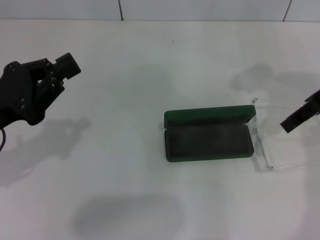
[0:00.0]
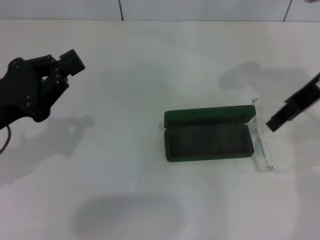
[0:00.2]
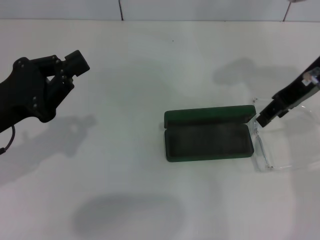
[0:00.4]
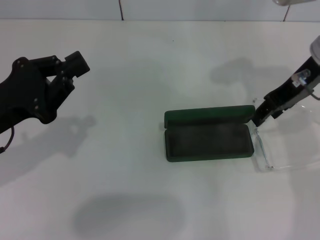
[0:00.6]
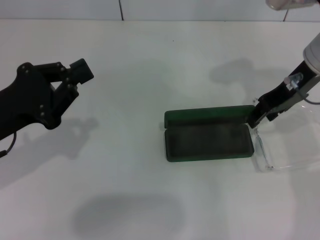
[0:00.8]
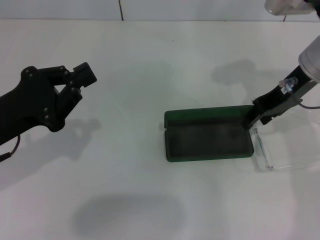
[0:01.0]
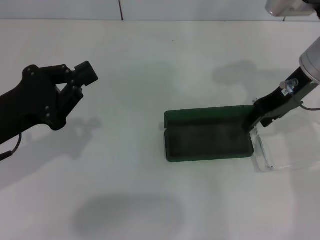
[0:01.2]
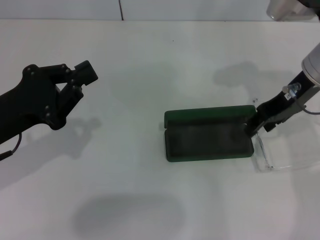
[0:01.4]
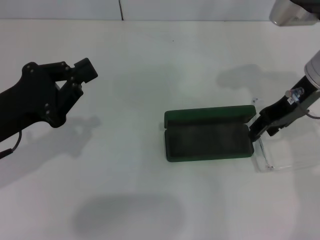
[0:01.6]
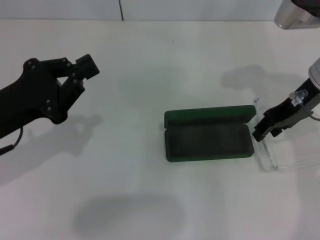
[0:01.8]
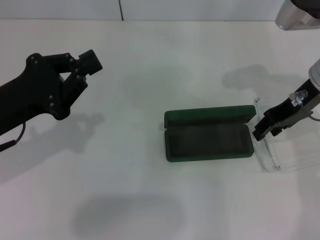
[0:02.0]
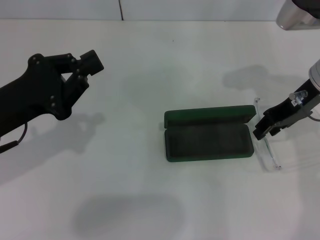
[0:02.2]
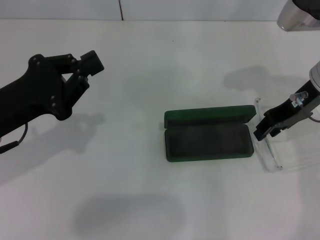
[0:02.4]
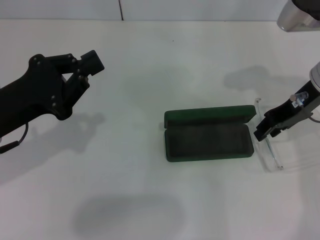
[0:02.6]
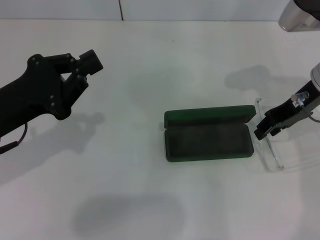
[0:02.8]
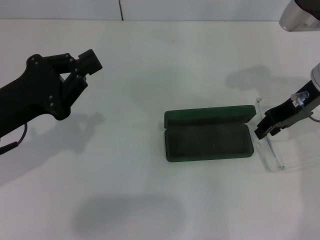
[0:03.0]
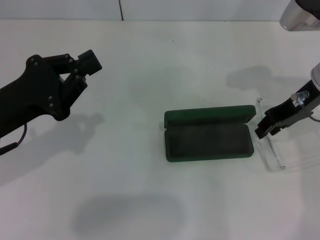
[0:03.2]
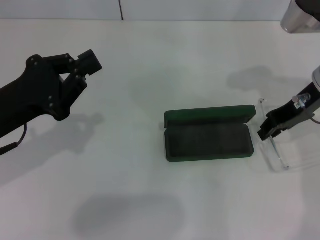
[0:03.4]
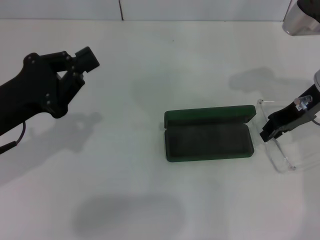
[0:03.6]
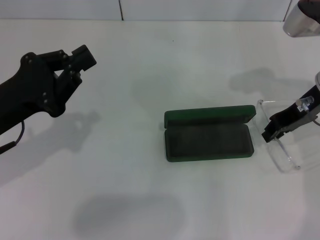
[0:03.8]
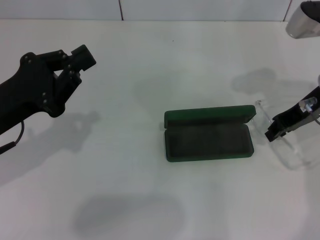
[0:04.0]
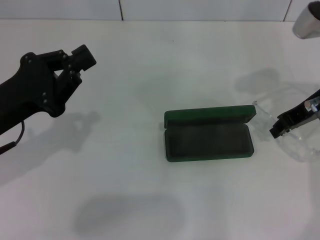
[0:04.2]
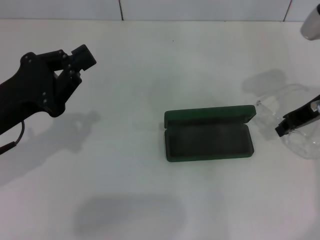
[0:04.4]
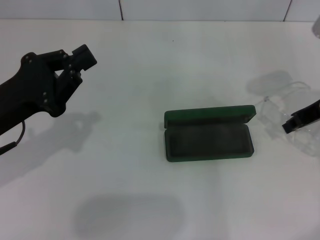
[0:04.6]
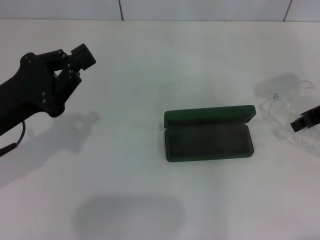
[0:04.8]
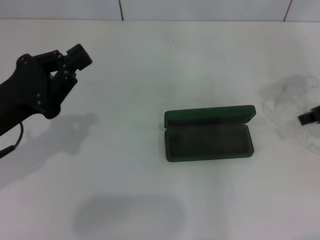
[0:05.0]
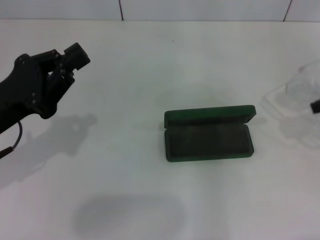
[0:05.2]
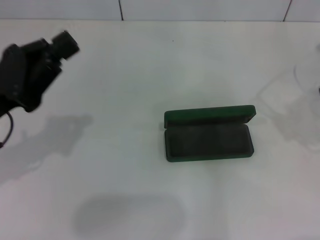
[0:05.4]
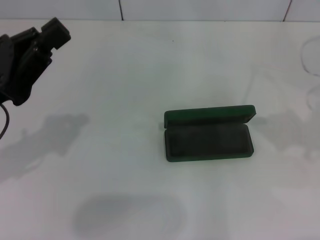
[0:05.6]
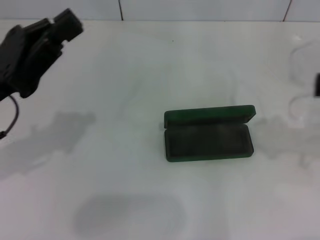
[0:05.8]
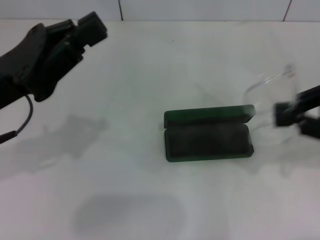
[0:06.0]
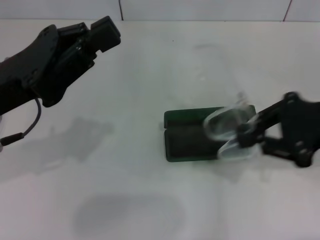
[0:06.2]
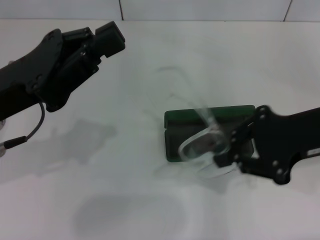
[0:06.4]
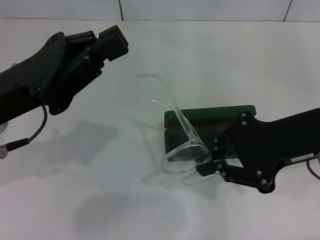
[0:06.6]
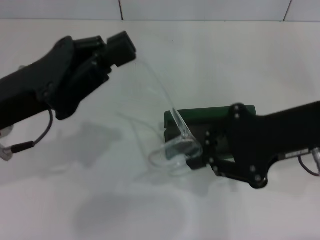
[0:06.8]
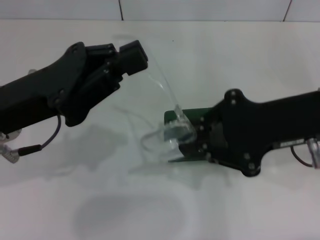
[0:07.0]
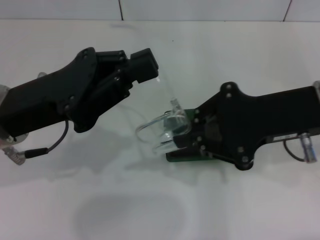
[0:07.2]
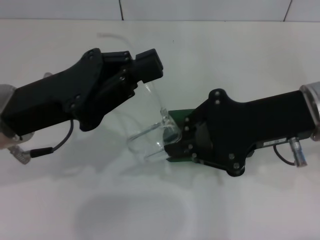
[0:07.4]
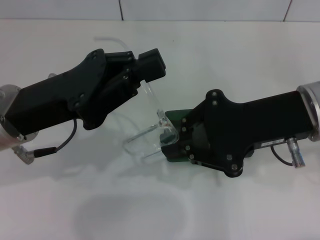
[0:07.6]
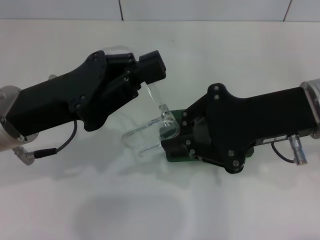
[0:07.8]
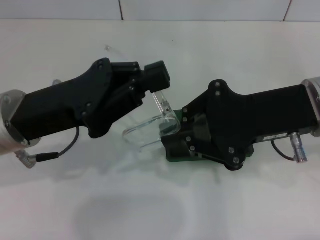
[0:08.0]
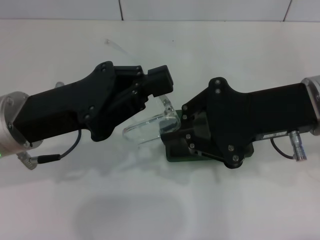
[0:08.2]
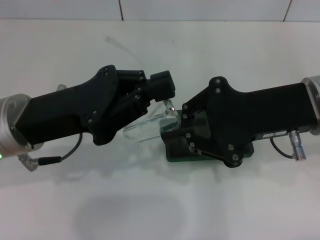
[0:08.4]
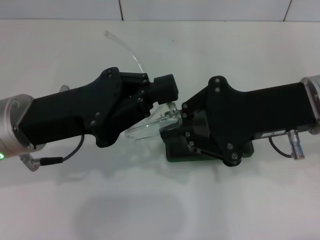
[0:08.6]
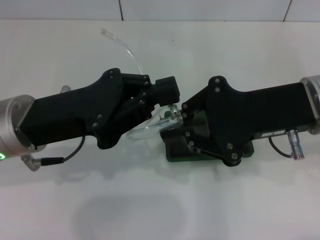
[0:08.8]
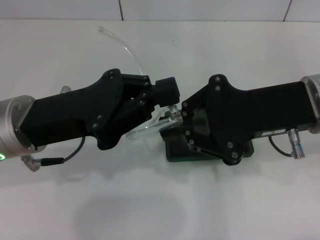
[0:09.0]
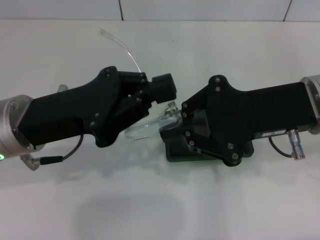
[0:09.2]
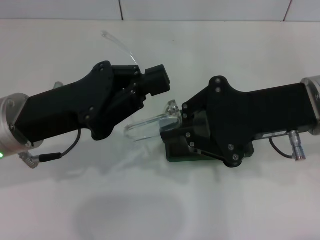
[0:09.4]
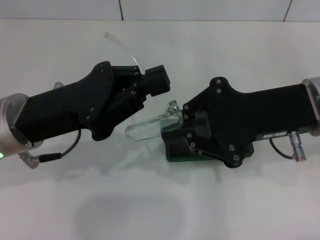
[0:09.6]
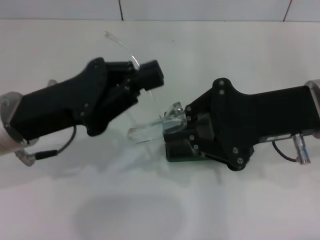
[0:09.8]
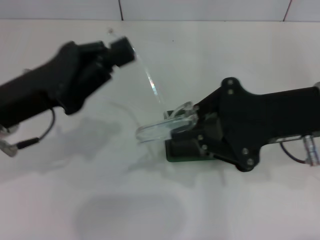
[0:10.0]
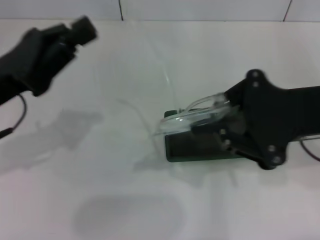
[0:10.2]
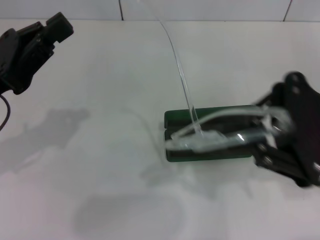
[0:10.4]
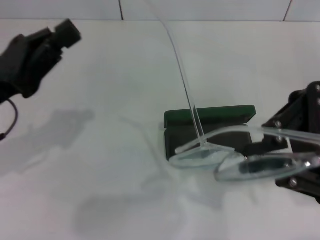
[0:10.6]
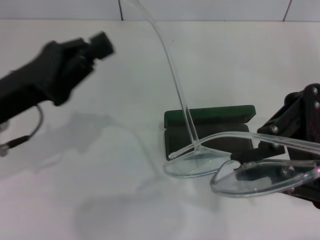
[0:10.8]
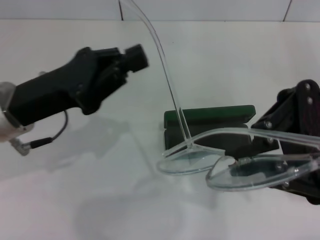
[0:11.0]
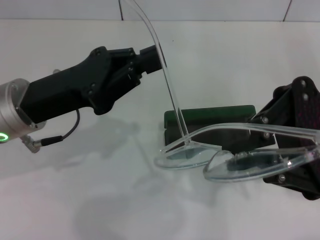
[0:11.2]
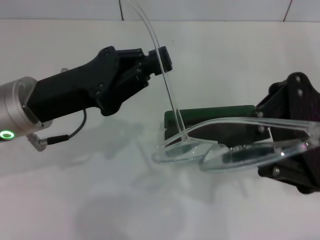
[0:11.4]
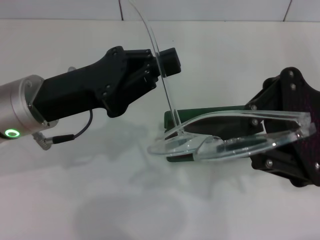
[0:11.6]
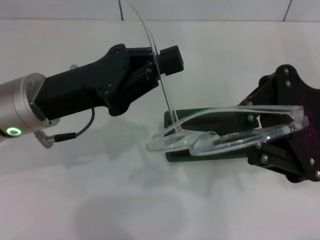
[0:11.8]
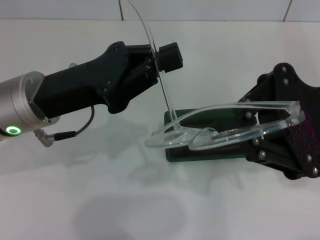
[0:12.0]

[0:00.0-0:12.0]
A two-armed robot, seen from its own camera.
Step, 0:00.0 to 0:03.8: Grab the eyeglass frame with your right hand.
0:00.0 to 0:01.6: The right gripper goes about 5 cm downward.
0:01.6 to 0:04.4: The grippers stay close to where they were, moving slightly.
0:04.4 to 0:06.0: The left gripper ends up about 5 cm from where it was, while the right gripper heads backward, upward and to the right, covering roughly 15 cm.
0:06.0 to 0:07.6: The right gripper heads to the left, covering about 10 cm.
0:07.6 to 0:09.0: The grippers make only small movements.
0:09.0 to 0:10.4: The left gripper travels to the left by roughly 10 cm. The right gripper moves about 5 cm.
0:10.4 to 0:12.0: The left gripper heads to the right, covering about 10 cm.

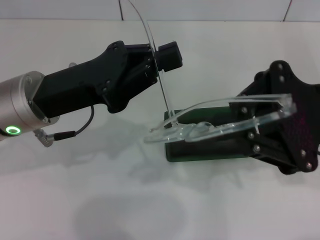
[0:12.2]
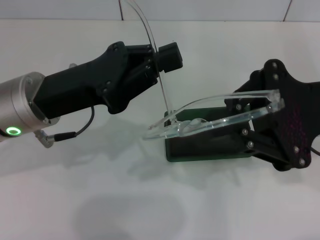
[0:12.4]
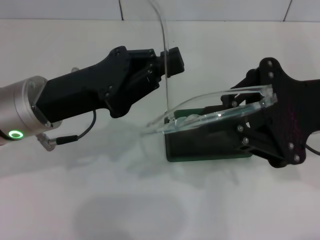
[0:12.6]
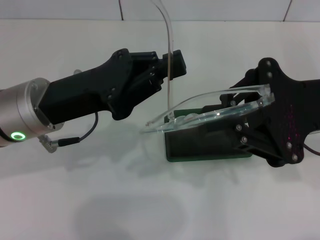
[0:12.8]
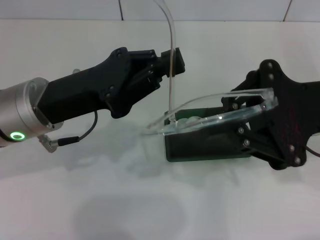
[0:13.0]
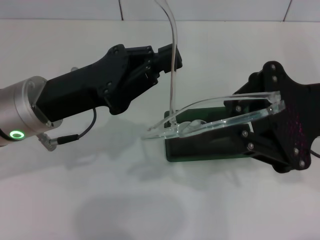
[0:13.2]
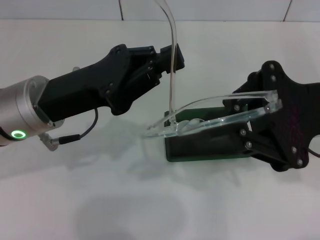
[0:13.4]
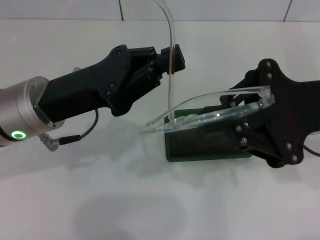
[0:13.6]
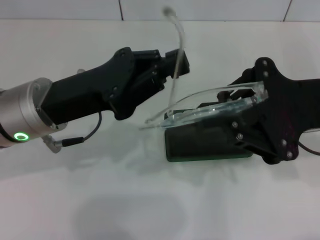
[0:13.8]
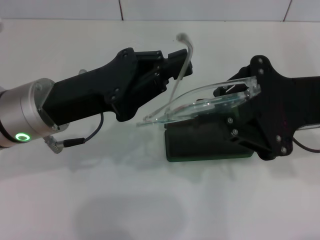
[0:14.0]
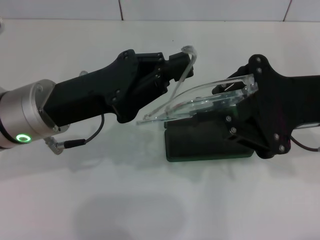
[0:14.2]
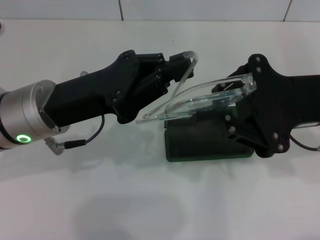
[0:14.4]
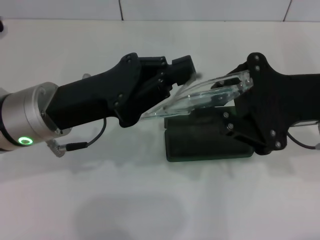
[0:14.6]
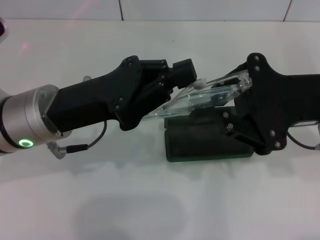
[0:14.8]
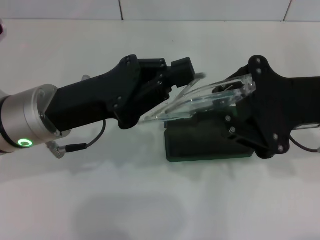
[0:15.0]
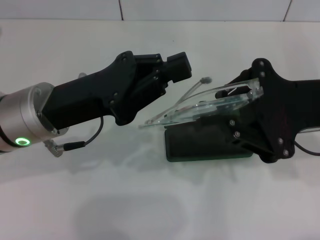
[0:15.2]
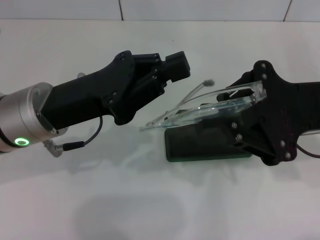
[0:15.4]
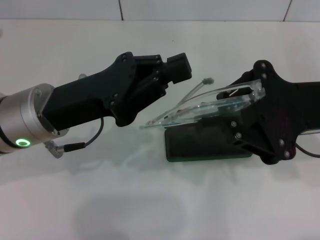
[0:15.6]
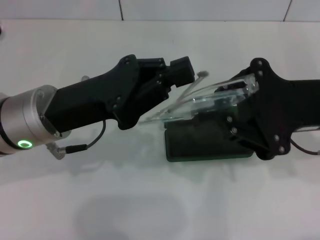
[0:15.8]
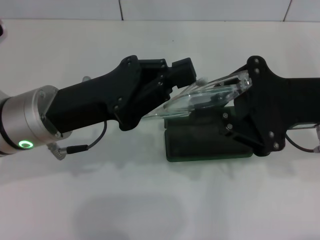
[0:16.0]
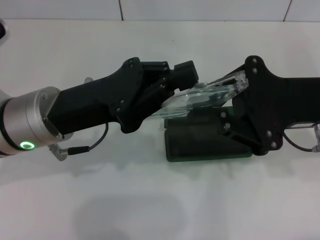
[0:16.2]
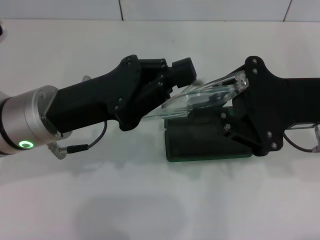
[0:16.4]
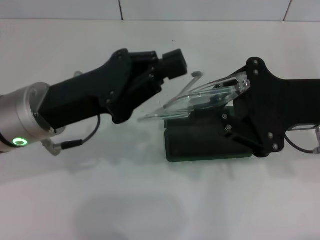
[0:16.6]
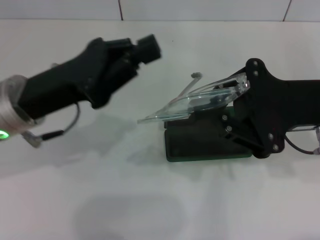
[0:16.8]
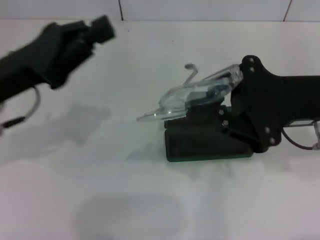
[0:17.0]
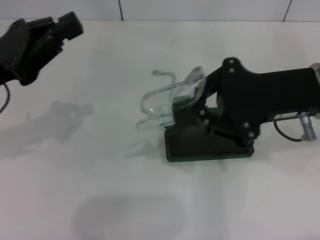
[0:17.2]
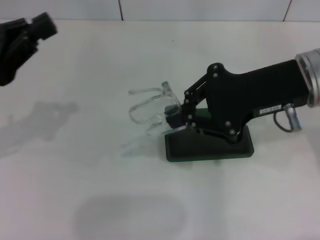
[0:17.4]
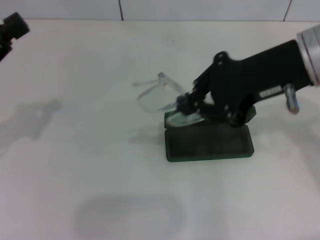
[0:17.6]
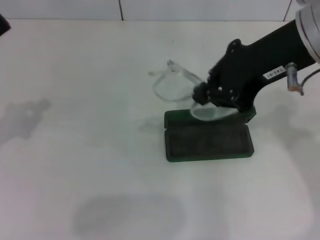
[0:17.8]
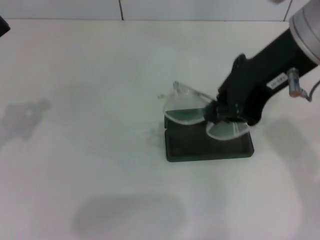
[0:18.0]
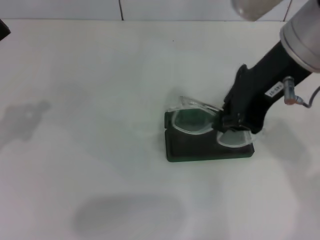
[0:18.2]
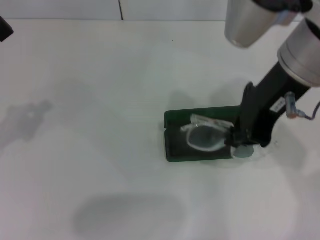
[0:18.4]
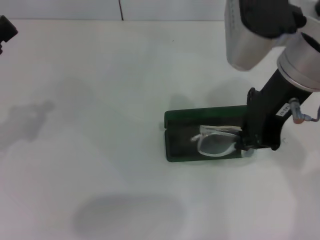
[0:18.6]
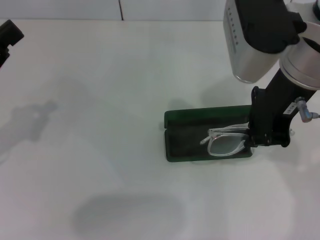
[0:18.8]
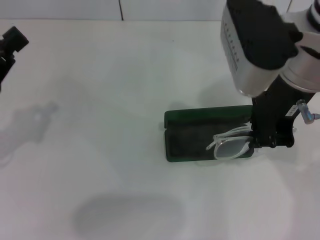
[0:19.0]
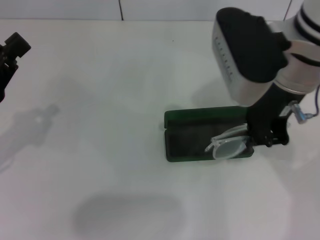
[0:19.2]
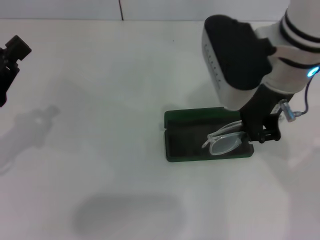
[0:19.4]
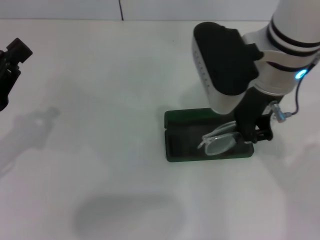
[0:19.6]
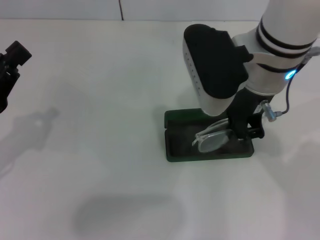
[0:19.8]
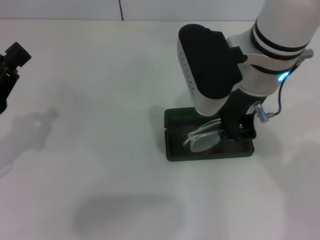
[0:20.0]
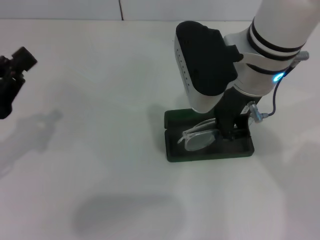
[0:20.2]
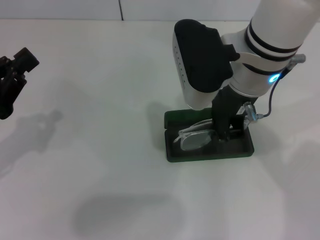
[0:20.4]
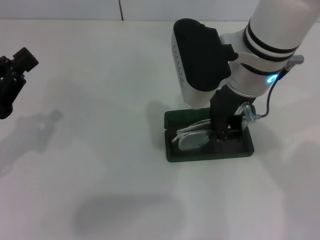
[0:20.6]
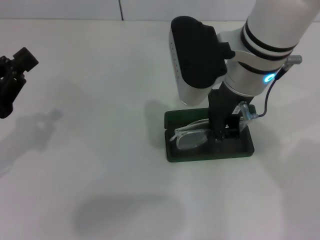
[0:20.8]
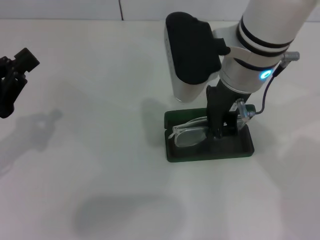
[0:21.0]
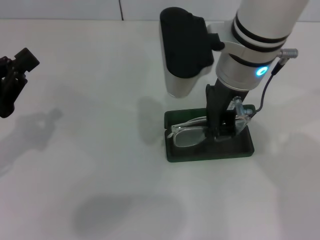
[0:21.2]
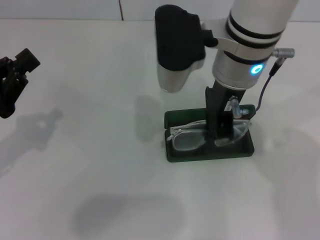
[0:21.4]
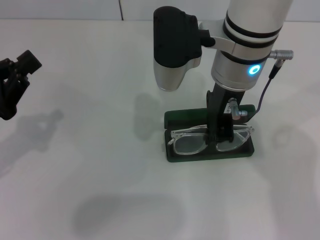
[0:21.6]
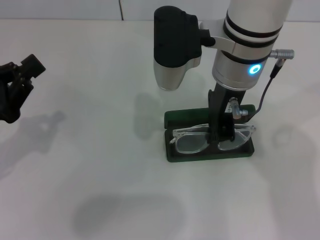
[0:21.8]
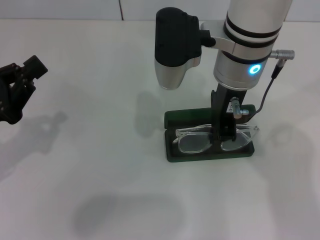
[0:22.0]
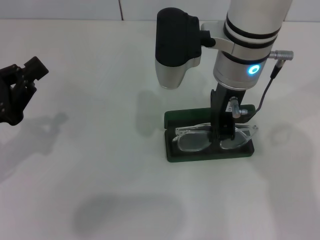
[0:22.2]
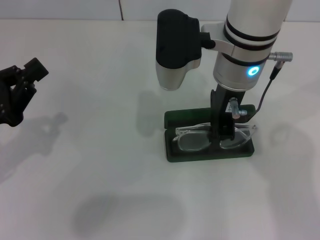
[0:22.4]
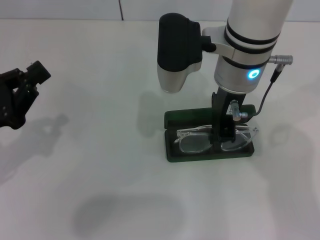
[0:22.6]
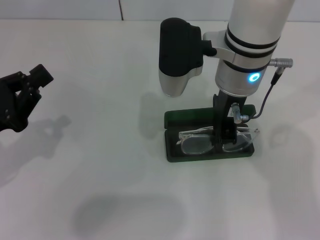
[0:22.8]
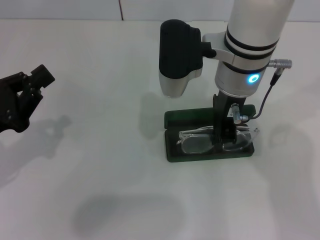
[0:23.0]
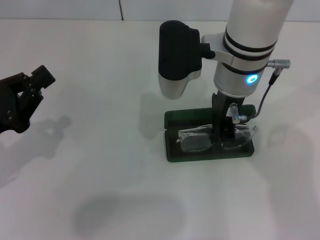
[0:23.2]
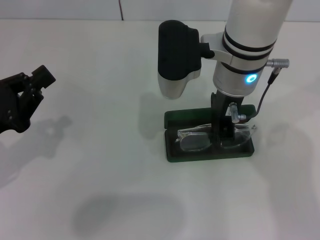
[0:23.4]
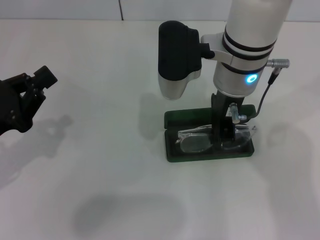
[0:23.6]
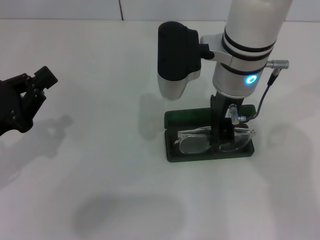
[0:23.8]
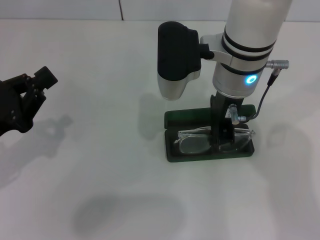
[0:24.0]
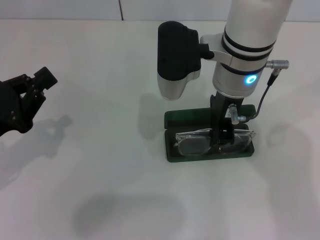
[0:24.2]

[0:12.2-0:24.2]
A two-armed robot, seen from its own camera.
Step, 0:12.2 to 0:14.8: Fold the frame with your left hand.
0:12.2 to 0:13.8: Both grippers stay put.
0:13.8 to 0:16.6: Both grippers stay put.
0:16.6 to 0:18.2: The right gripper goes roughly 15 cm upward and to the left. The left gripper shifts roughly 15 cm to the left.
0:18.2 to 0:19.8: The right gripper travels downward by about 10 cm. The left gripper changes place by about 5 cm.
0:19.8 to 0:22.6: The grippers make only small movements.
0:22.6 to 0:24.2: Neither gripper changes place.
